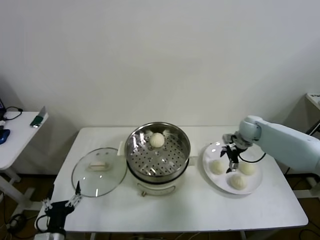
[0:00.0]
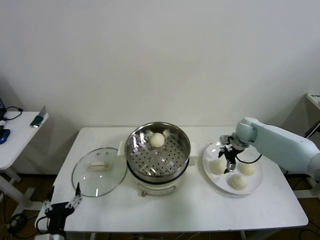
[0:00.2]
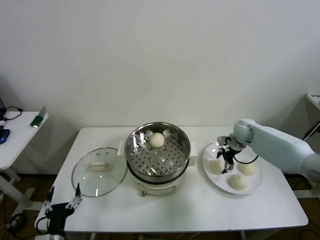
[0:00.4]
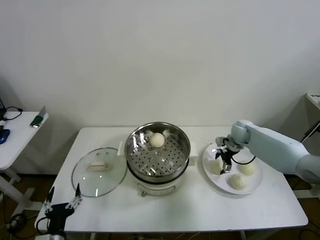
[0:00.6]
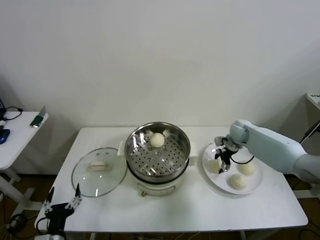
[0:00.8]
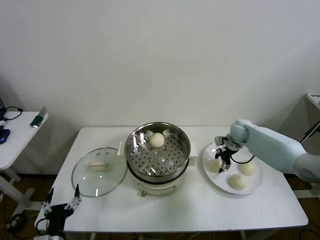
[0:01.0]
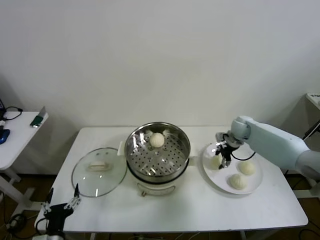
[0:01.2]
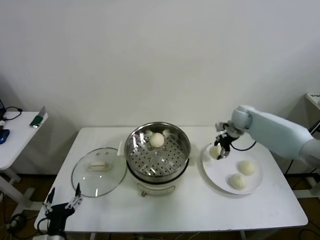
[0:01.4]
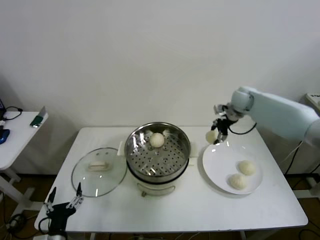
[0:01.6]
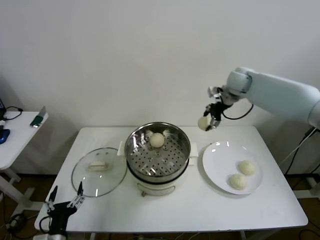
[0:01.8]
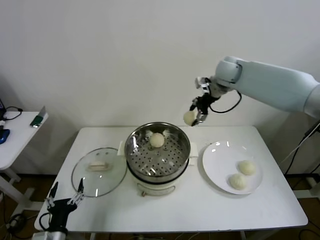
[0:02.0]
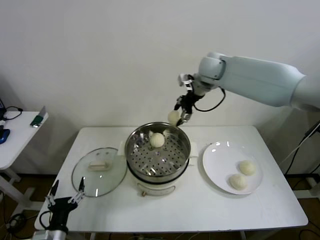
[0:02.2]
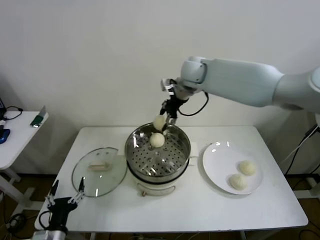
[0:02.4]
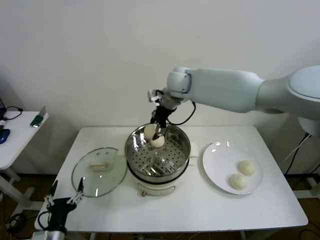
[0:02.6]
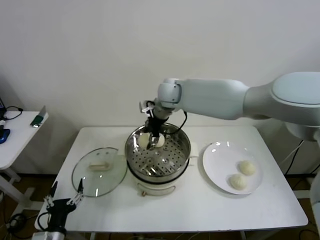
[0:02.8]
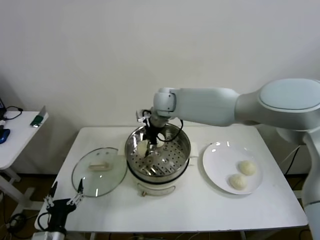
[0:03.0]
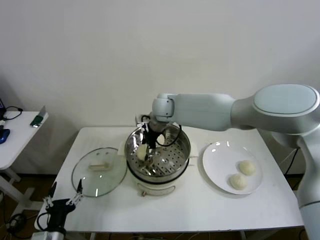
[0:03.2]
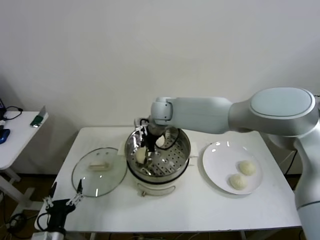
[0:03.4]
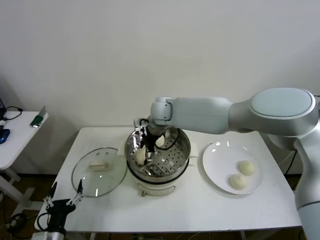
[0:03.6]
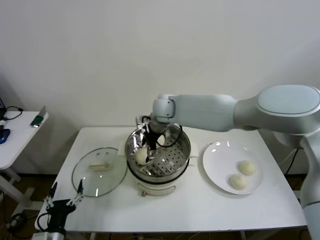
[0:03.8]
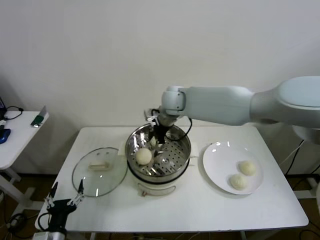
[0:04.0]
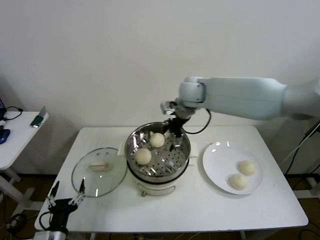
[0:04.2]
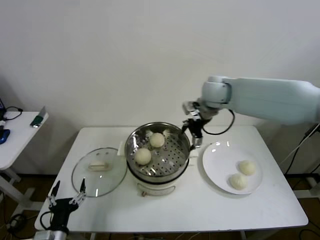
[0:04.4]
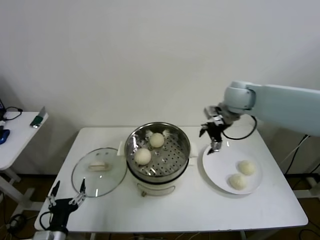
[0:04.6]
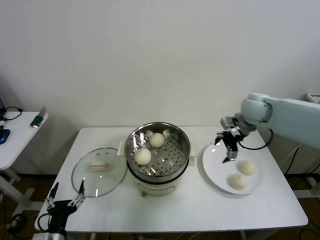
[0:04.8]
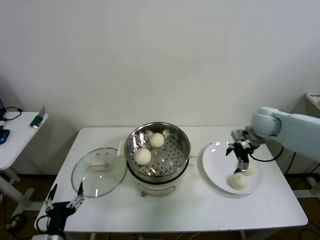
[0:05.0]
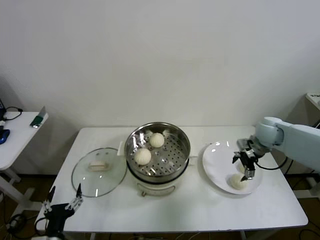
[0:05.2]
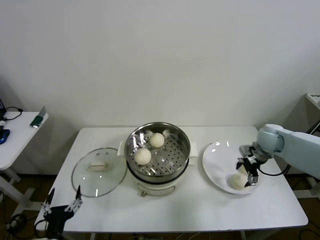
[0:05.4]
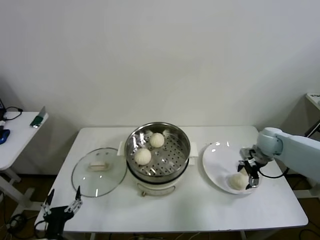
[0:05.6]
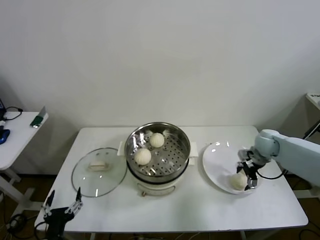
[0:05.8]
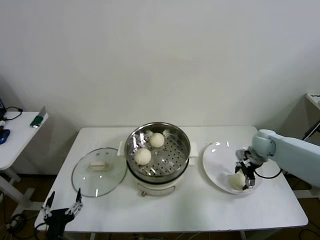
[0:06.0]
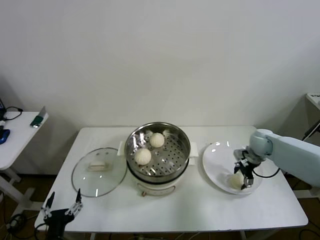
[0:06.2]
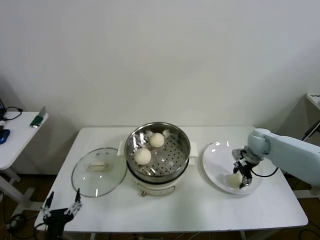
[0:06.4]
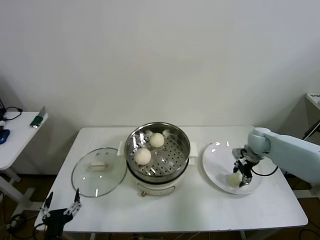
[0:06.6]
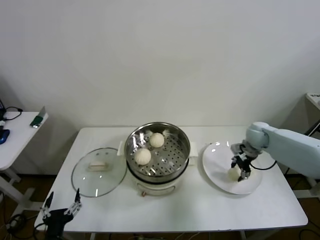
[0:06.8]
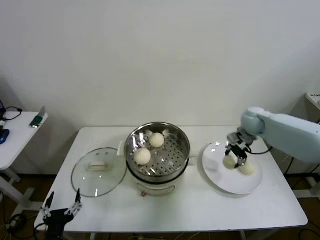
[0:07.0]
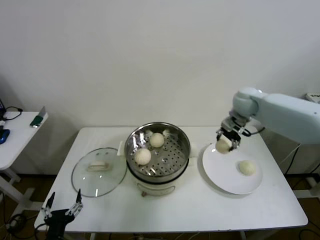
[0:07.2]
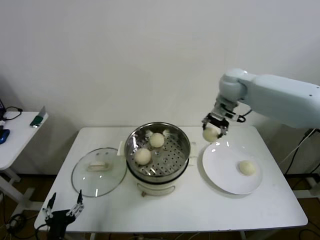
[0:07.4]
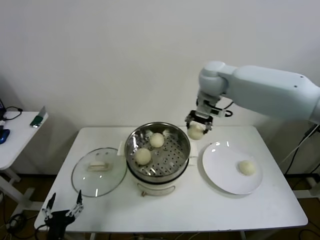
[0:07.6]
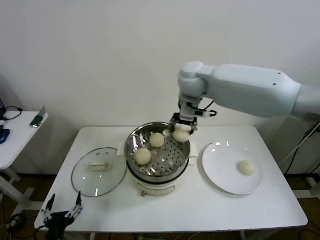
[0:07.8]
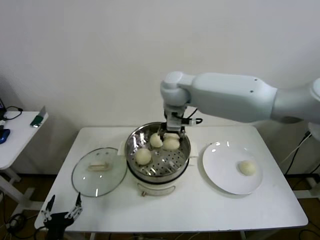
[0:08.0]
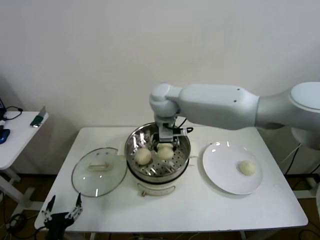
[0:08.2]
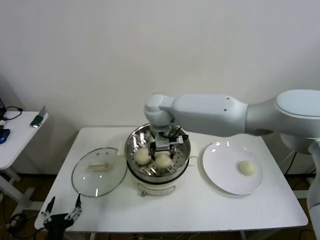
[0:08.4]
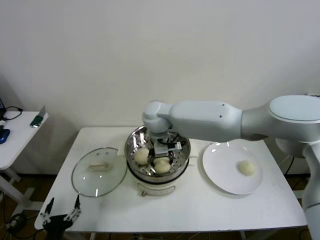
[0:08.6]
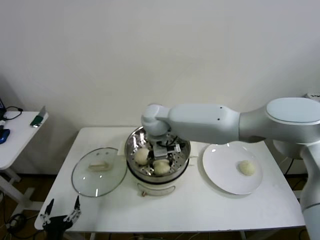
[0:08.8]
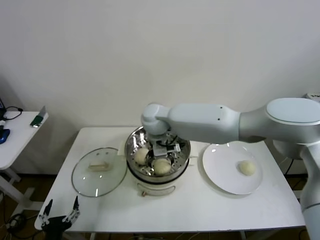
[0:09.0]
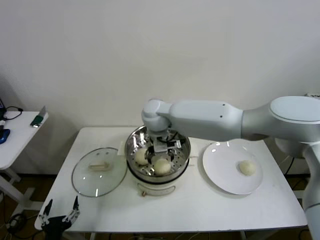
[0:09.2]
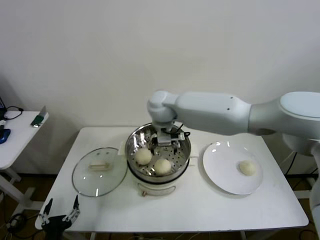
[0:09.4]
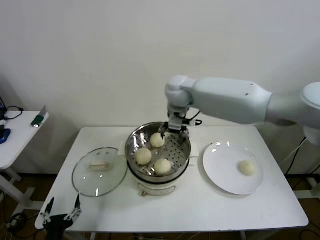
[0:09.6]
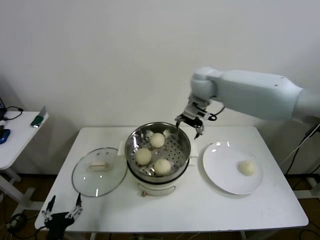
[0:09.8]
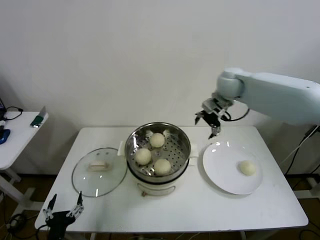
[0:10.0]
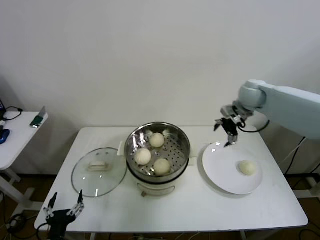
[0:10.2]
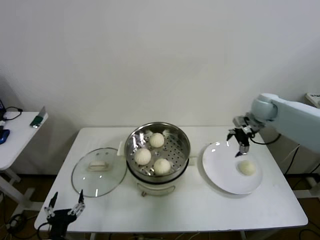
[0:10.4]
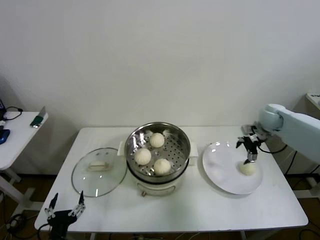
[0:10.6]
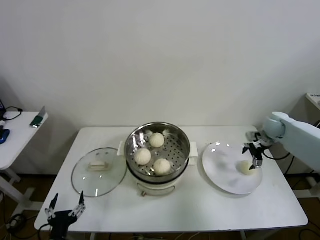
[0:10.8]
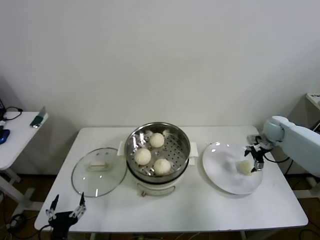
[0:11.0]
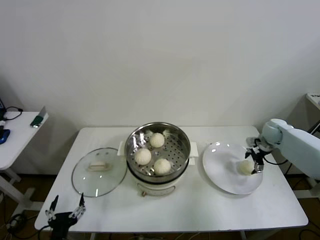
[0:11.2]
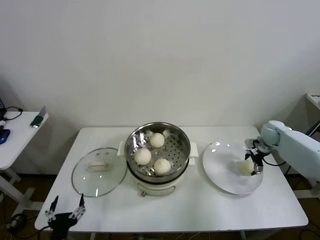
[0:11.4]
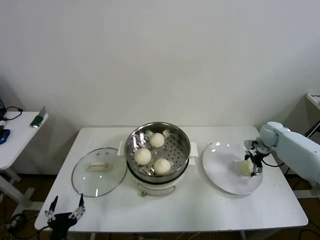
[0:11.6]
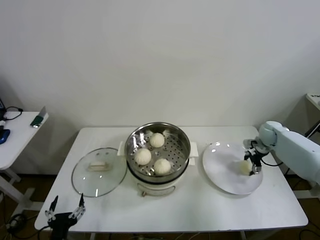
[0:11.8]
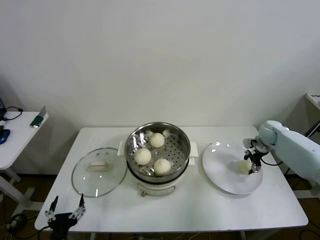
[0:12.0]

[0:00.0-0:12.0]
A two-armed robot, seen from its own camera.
Step, 0:00.8 to 0:03.8: Place the baozi on the steamer with right gripper.
Step, 0:04.0 to 0:06.4: Grasp the baozi in the plate with right gripper.
Step, 0:06.6 to 0:09.2: Place the baozi on the steamer with right gripper.
Step, 0:09.6 to 0:11.6: Grasp the baozi in the plate with right gripper.
0:00.0 to 0:01.6: The right gripper travels upward and forward by about 15 cm, and closes.
0:01.6 to 0:03.0: The right gripper travels to the left by roughly 30 cm.
0:03.0 to 0:04.4: The right gripper is displaced to the right by some 15 cm, and opens up.
0:04.4 to 0:06.0: The right gripper shifts roughly 30 cm downward and to the right.
0:06.0 to 0:07.6: The right gripper travels upward and to the left by approximately 35 cm, and closes its fingers.
0:07.6 to 0:09.0: The right gripper moves to the left and downward, approximately 20 cm, and opens its fingers.
0:09.0 to 0:10.4: The right gripper travels to the right by some 40 cm.
0:10.4 to 0:12.0: The right gripper travels downward and to the right by approximately 15 cm, and closes its fingers.

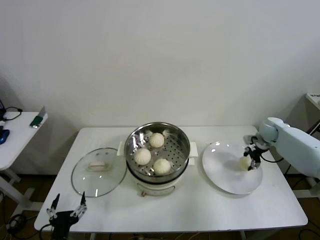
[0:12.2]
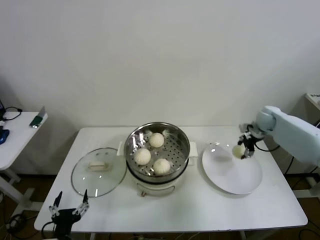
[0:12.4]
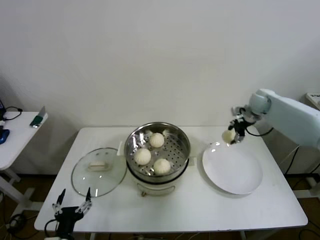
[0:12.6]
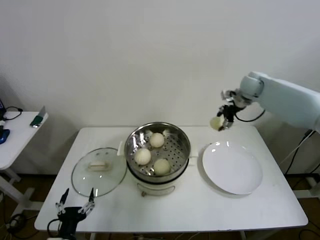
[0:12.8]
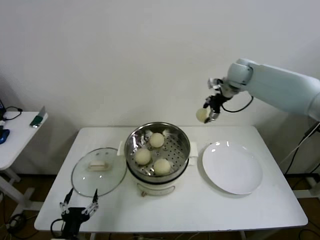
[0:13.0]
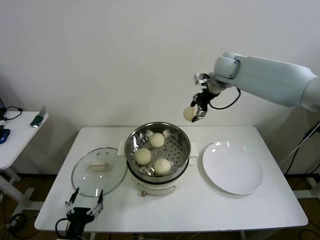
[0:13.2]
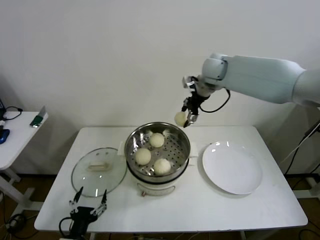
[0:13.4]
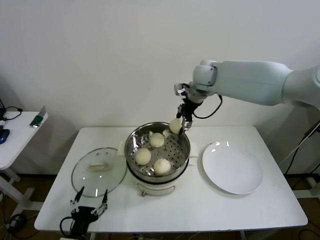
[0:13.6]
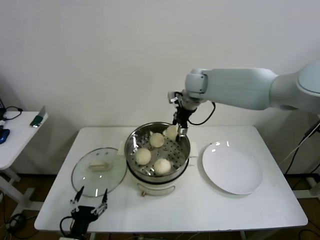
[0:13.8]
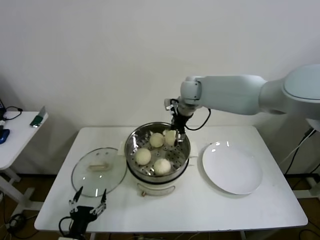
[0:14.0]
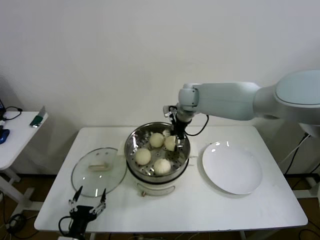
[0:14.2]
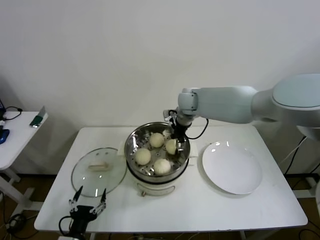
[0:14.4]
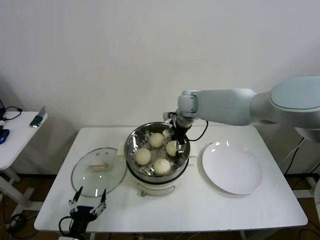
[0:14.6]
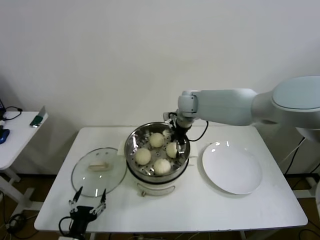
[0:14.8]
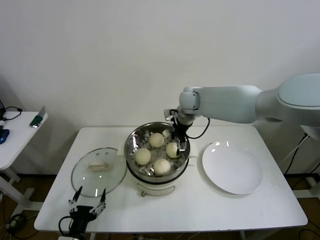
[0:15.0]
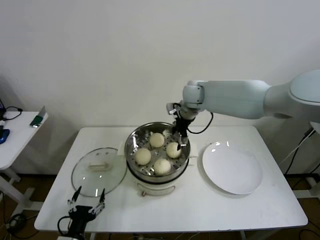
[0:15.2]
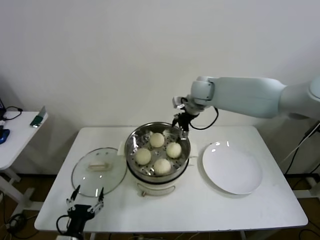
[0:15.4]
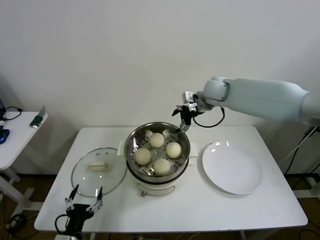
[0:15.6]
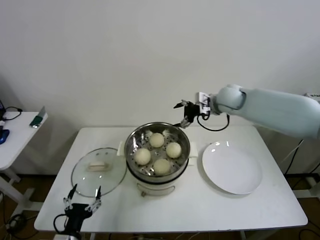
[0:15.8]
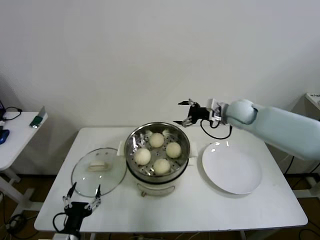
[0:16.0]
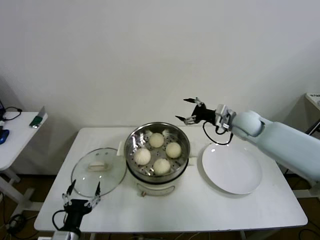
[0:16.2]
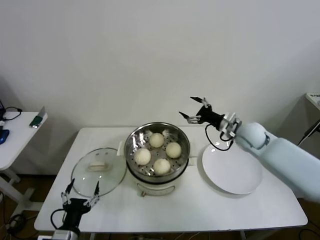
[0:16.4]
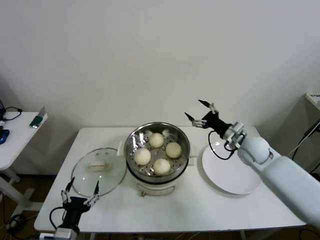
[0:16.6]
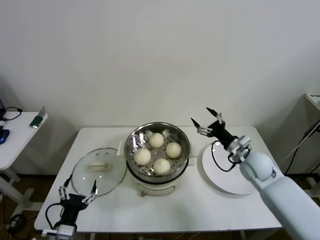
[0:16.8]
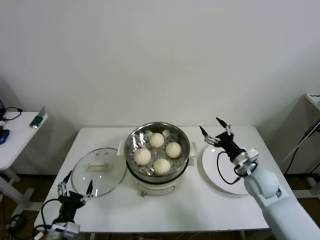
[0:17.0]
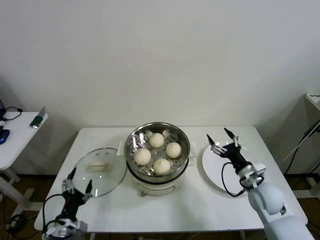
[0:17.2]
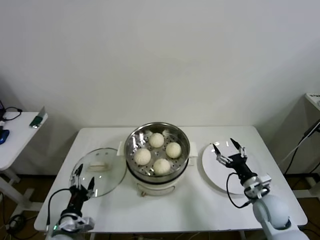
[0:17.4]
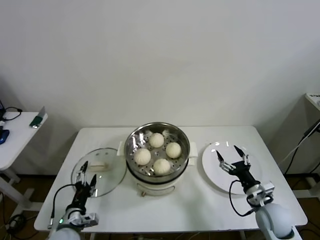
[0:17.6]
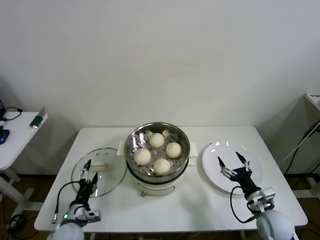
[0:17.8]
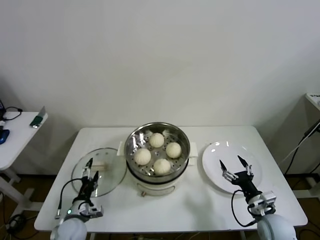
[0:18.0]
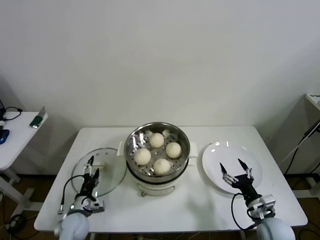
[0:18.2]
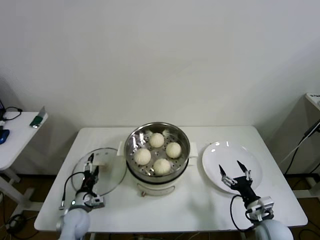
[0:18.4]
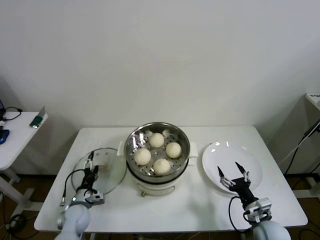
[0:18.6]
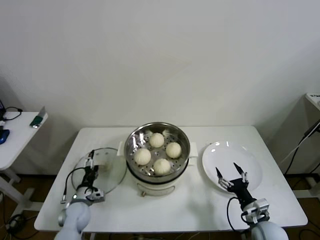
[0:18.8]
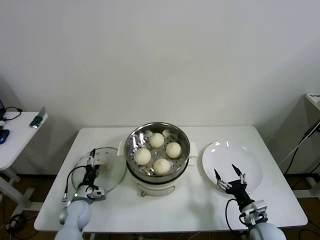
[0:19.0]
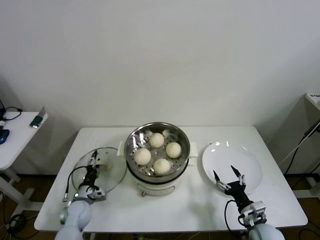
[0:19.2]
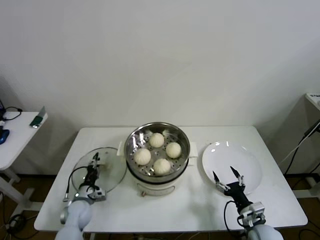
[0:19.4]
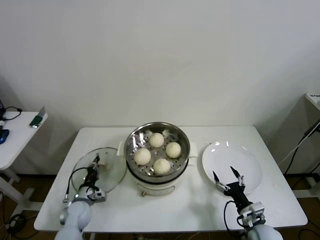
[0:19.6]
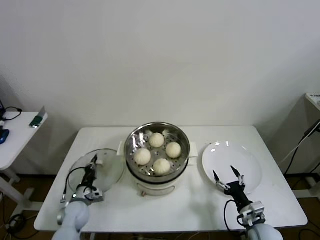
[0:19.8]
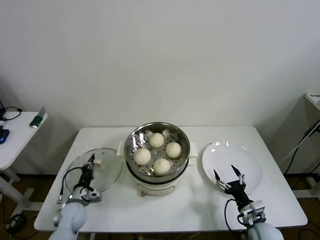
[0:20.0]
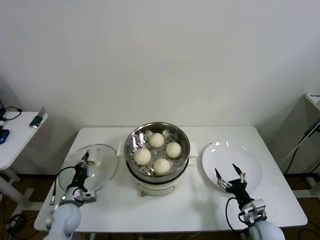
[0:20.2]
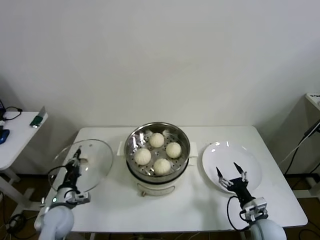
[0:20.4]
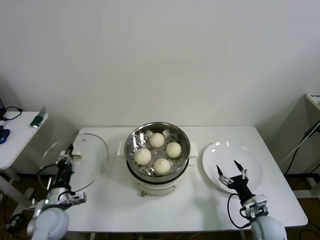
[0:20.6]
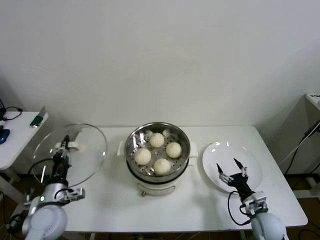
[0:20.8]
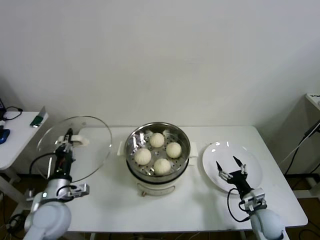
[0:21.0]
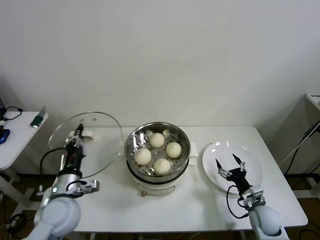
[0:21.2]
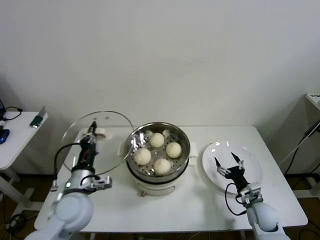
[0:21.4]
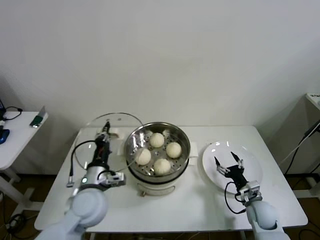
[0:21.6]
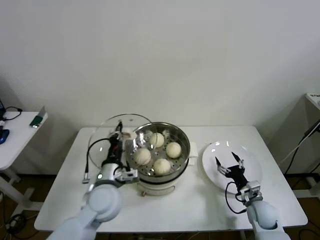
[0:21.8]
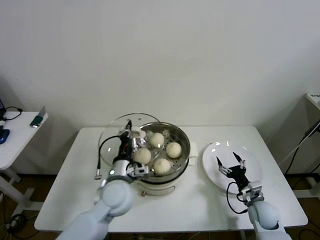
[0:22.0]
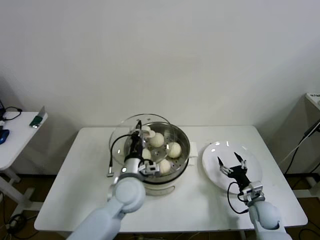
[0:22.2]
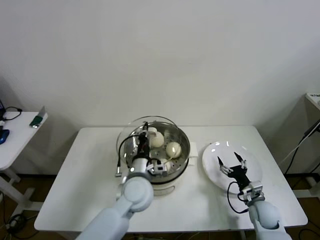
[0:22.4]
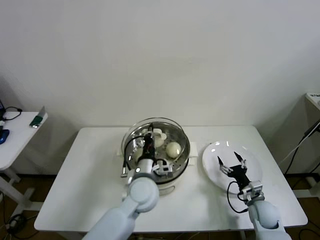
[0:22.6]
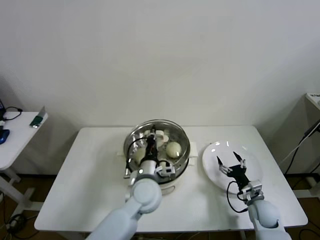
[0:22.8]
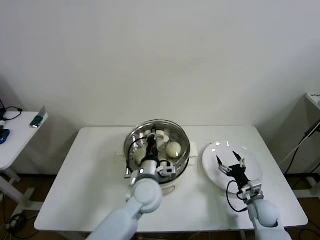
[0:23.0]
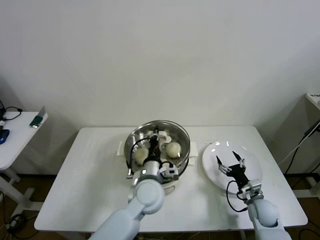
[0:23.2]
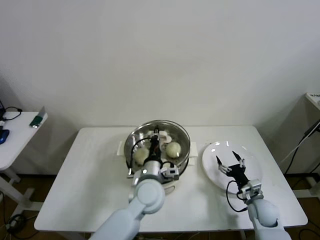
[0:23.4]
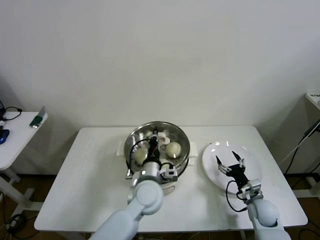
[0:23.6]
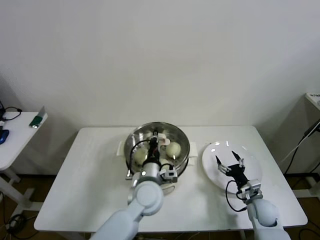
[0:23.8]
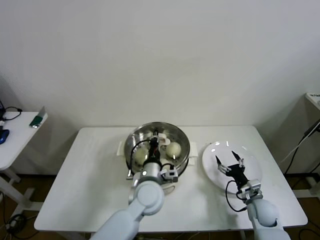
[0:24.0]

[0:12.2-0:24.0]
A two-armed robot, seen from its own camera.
Step, 0:12.2 to 0:15.4: Place the baozi on the steamer with right gripper.
Step, 0:15.6 to 0:19.6: Grasp the pot lid with left gripper.
0:12.2 to 0:13.6: The right gripper shifts about 40 cm to the left and upward.
0:13.6 to 0:15.2: The right gripper travels downward by about 5 cm, and opens.
0:15.2 to 0:16.6: The right gripper travels to the right, downward and backward by about 25 cm.
0:16.6 to 0:18.2: The left gripper is displaced forward and downward by about 15 cm, while the right gripper is displaced backward and downward by about 25 cm.
0:18.2 to 0:19.6: The left gripper shifts approximately 5 cm forward, and closes.
0:19.6 to 0:21.0: The right gripper ends up approximately 5 cm from where it was. The left gripper travels upward by about 20 cm.
0:21.0 to 0:22.6: The left gripper heads to the right, covering some 25 cm.
0:22.6 to 0:24.0: The grippers stay close to where they were, moving slightly.
